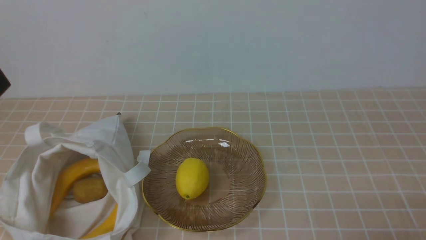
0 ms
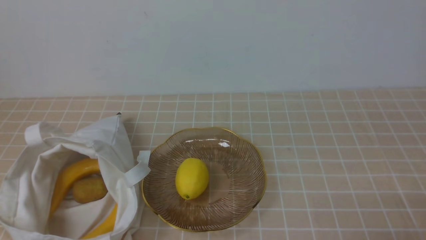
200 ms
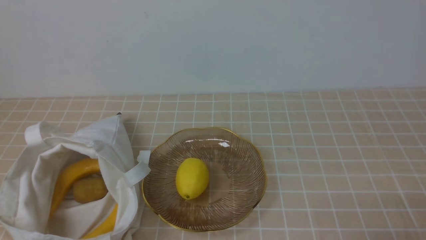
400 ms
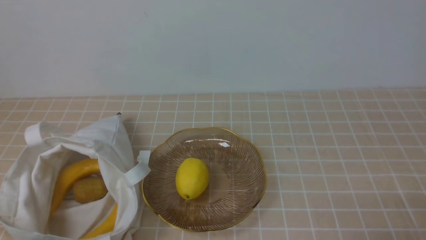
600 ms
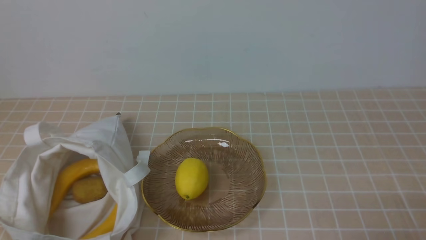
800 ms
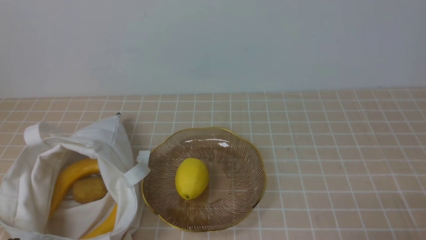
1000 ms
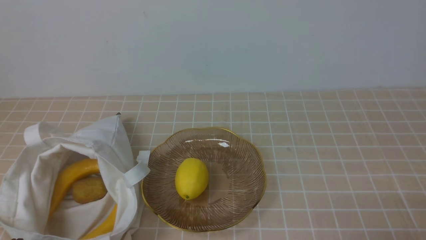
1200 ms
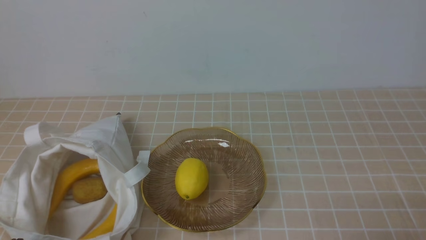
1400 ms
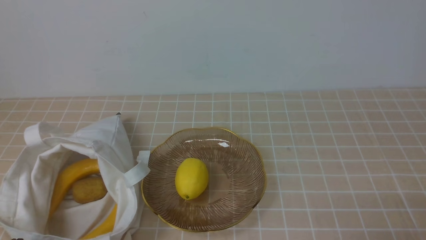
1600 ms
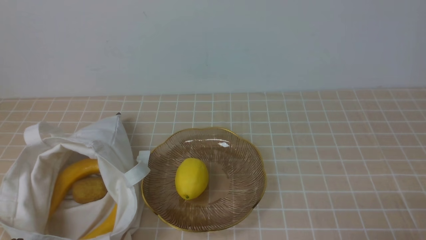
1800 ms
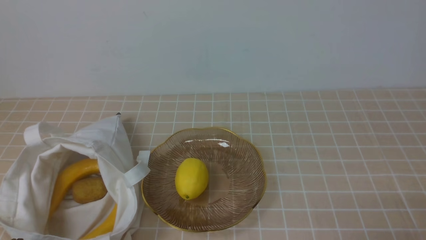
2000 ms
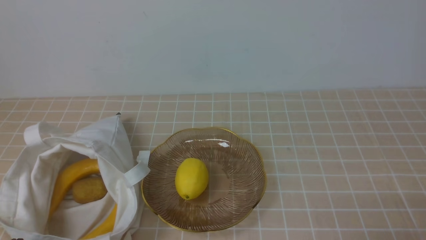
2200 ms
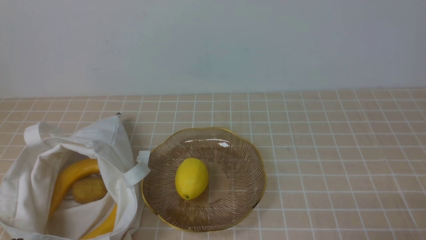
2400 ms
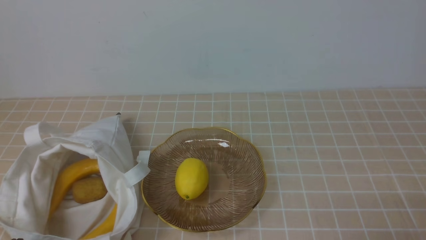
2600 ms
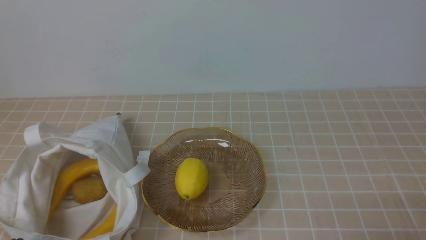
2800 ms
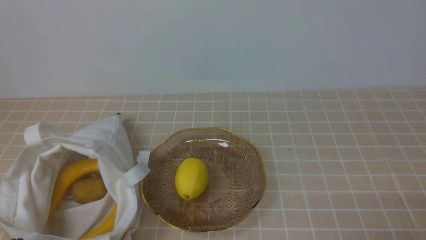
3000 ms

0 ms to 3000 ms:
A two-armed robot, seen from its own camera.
1600 ms to 3000 ms: The two grippers keep their place.

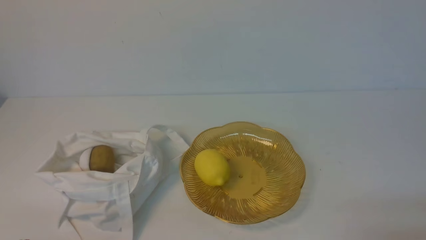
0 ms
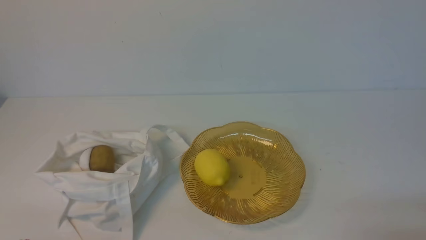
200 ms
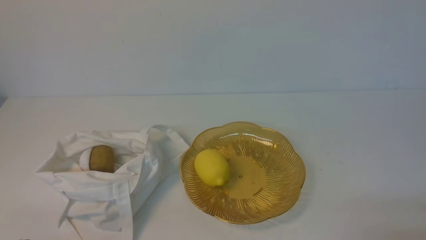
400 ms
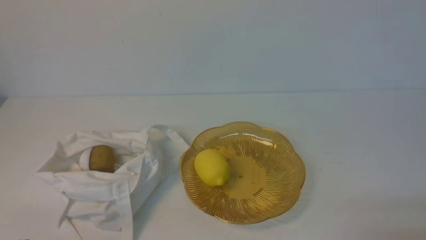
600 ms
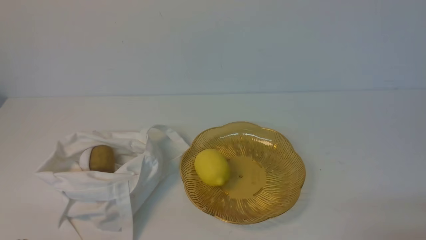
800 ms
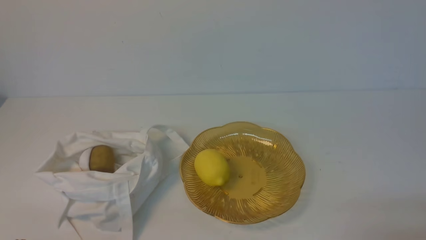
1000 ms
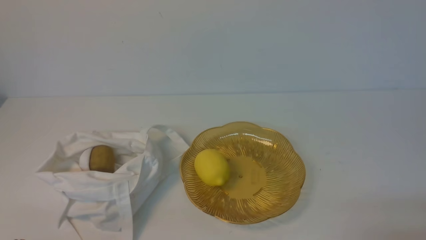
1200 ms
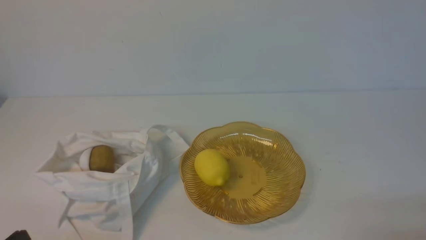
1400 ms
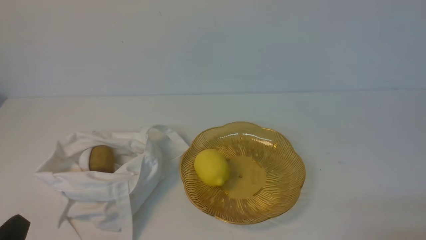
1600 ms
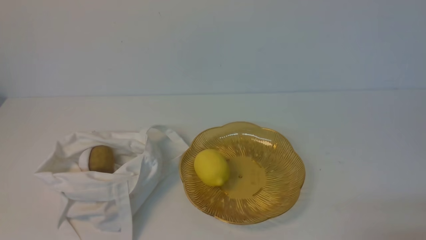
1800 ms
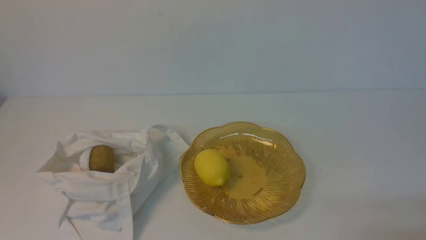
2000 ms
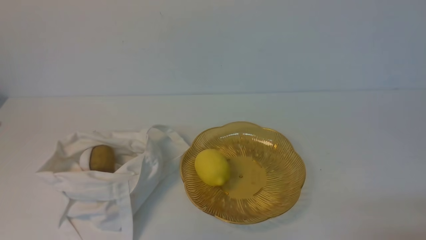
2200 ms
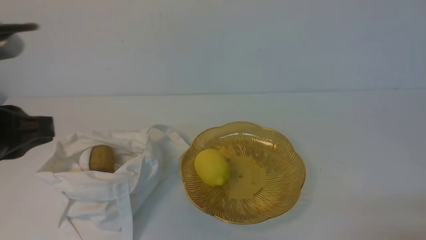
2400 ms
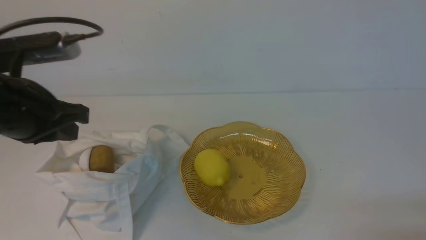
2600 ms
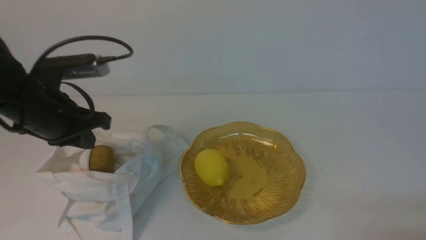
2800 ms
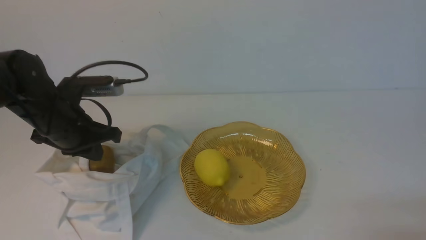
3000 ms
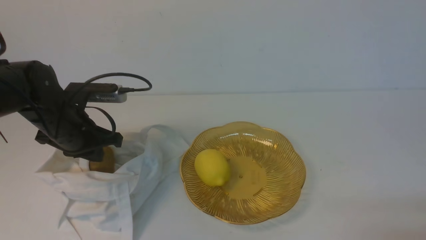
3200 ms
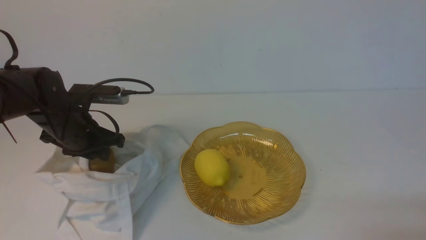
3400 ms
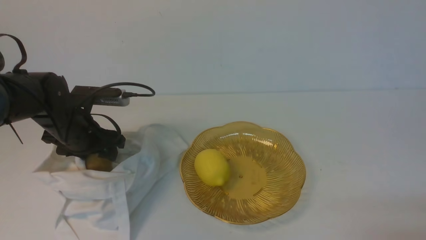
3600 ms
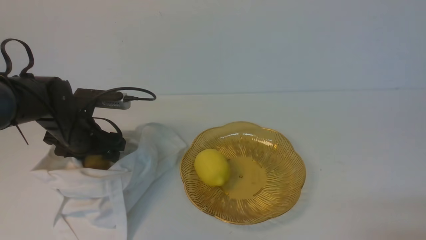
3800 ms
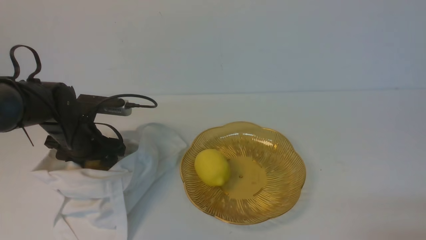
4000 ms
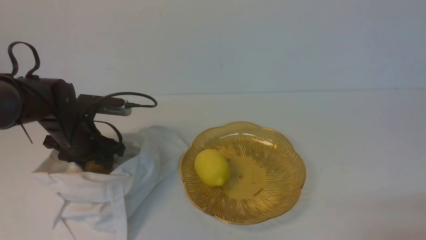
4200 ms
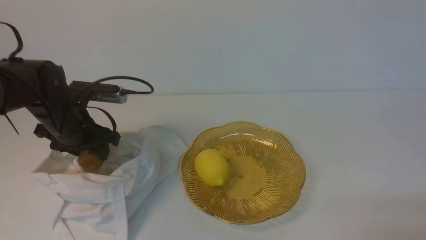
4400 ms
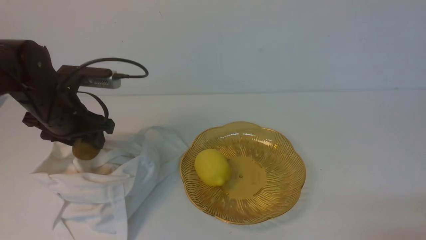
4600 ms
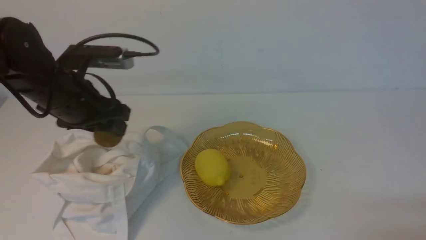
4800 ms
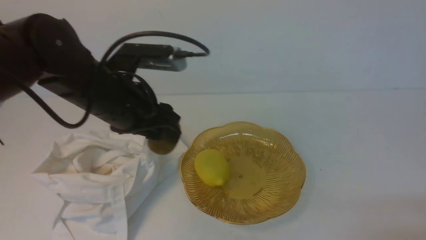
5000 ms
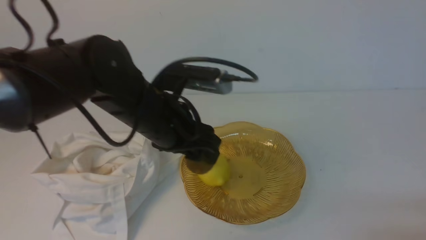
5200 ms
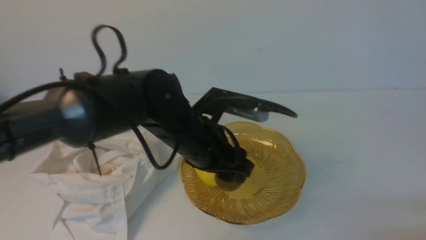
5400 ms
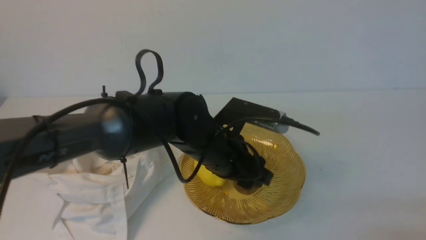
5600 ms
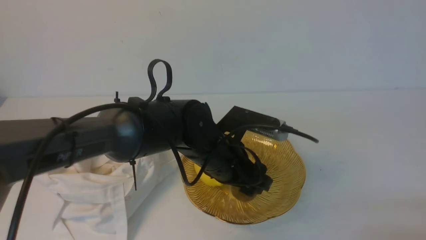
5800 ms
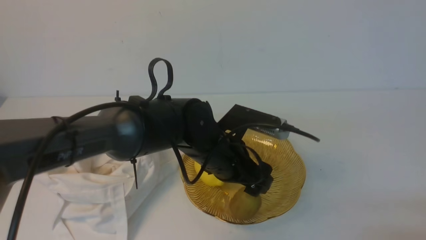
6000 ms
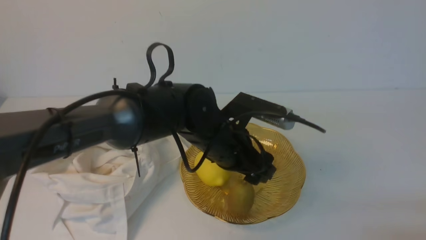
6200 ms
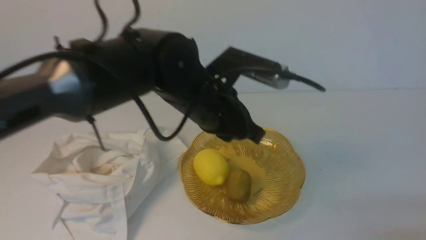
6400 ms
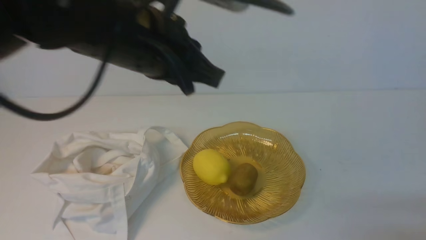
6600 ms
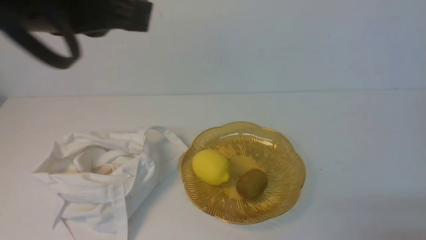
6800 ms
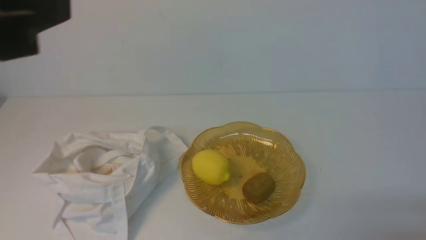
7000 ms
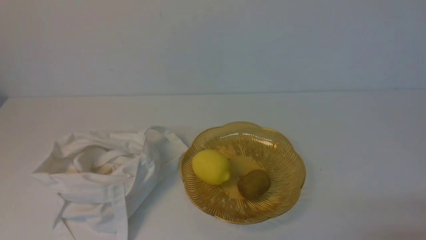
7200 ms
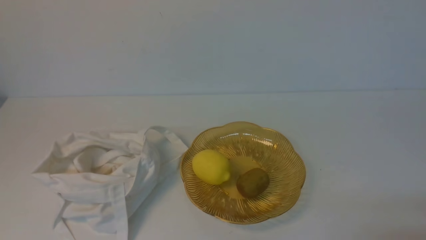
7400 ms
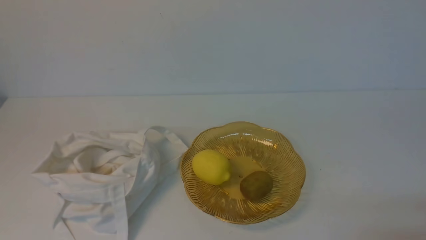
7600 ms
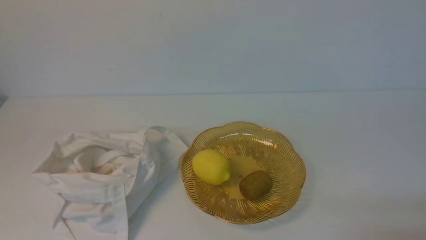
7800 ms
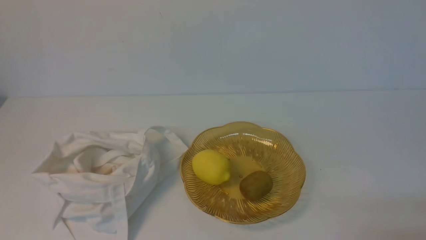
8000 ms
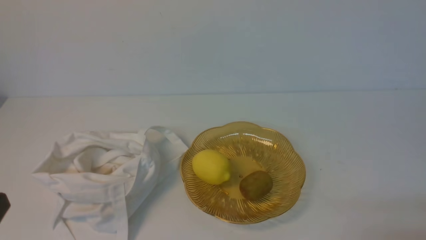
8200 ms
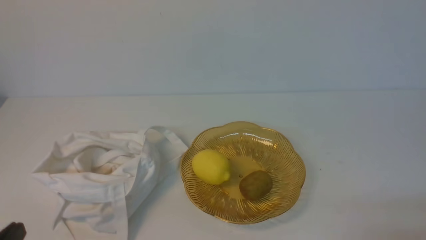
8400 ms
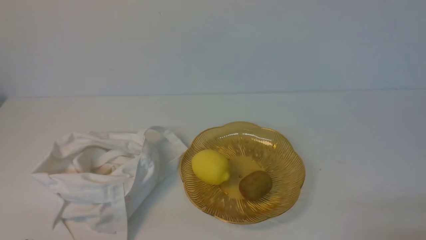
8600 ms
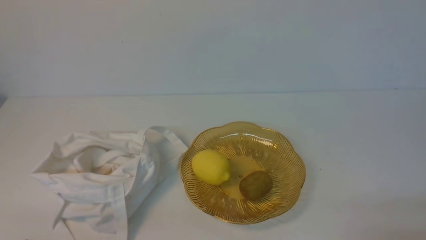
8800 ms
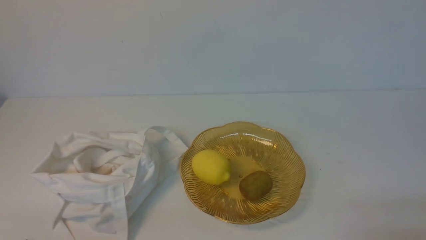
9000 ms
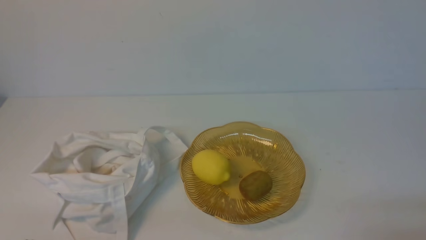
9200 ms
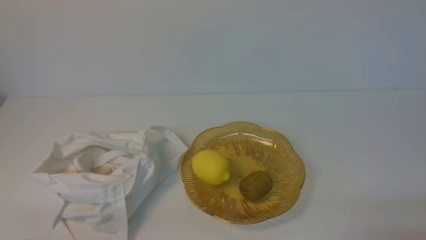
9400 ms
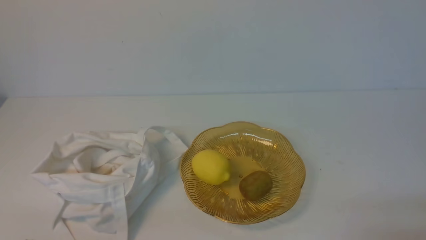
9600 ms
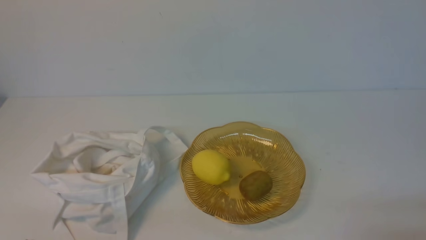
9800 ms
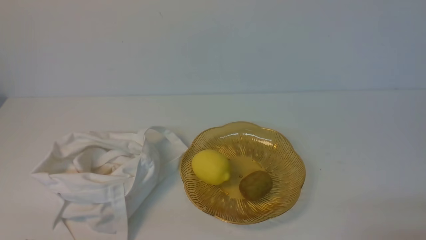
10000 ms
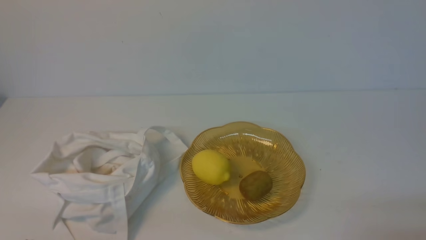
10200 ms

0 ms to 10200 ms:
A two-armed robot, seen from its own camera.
Step, 0 ms to 4400 ms: use the left arm to grab a kiwi from the bag.
Step, 4600 ms to 6200 ms: use the left arm to put the kiwi into the empty plate on the right.
1400 ms to 3000 ms: The left gripper travels forward by some 25 cm.
3000 ms to 4400 ms: The left gripper is displaced downward by approximately 5 cm, and opens.
4400 ms to 5800 ms: The left gripper heads to the right, covering about 25 cm.
5800 ms to 7200 ms: The left gripper goes roughly 40 cm upward, to the left and backward, and closes its fingers.
8800 ms to 10200 ms: Both grippers stay put.
